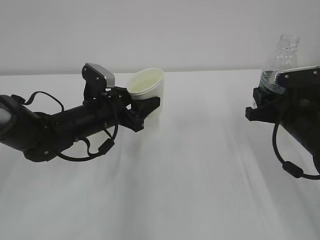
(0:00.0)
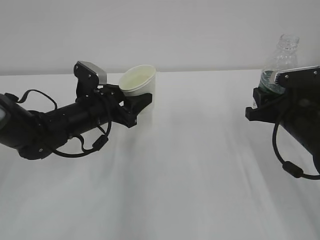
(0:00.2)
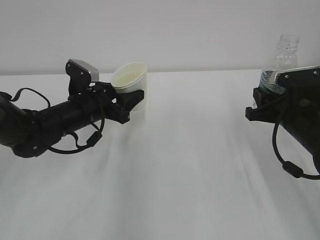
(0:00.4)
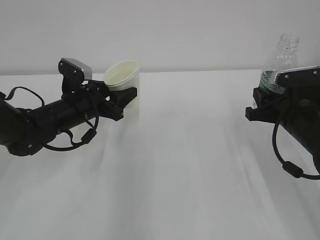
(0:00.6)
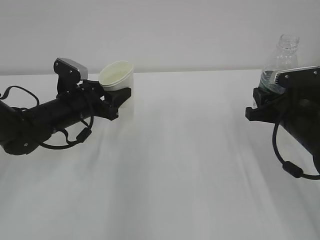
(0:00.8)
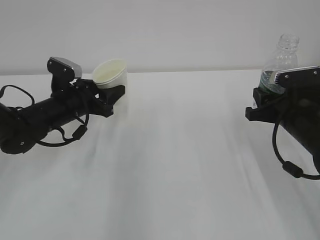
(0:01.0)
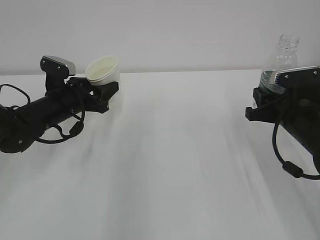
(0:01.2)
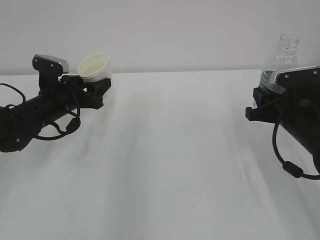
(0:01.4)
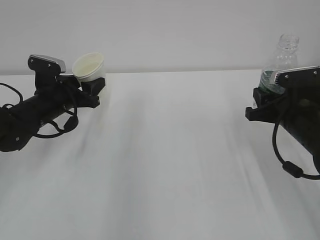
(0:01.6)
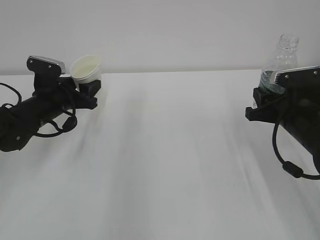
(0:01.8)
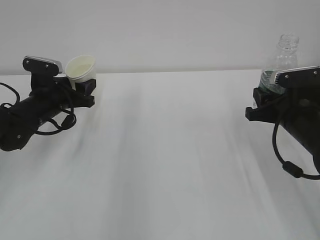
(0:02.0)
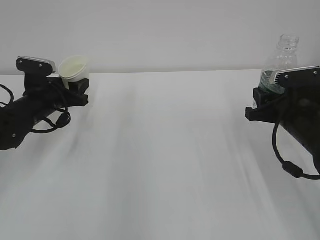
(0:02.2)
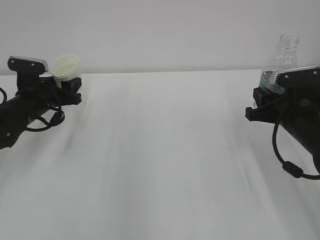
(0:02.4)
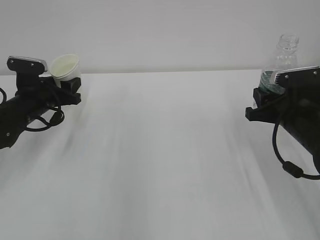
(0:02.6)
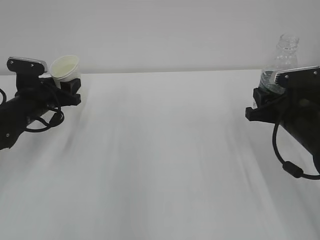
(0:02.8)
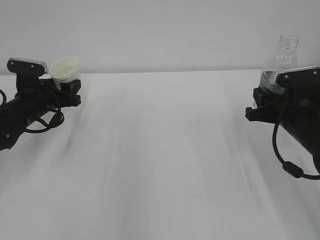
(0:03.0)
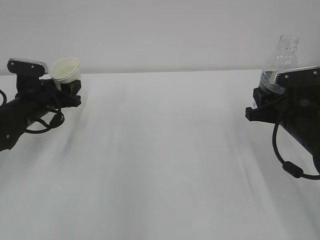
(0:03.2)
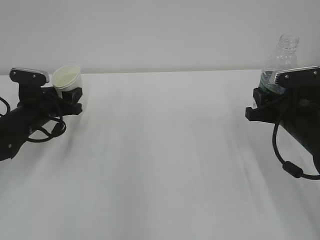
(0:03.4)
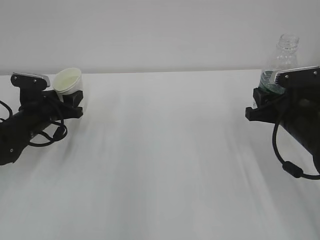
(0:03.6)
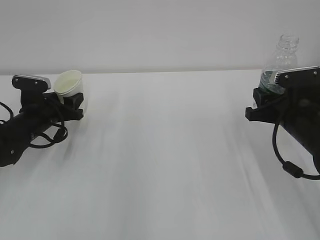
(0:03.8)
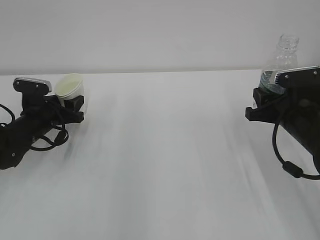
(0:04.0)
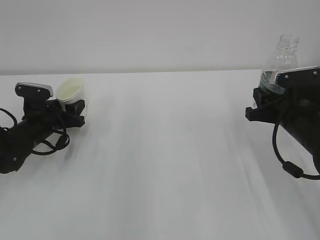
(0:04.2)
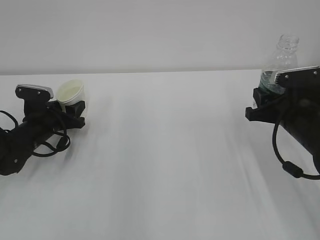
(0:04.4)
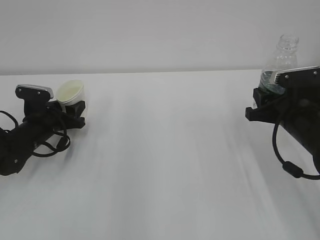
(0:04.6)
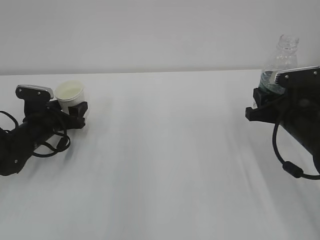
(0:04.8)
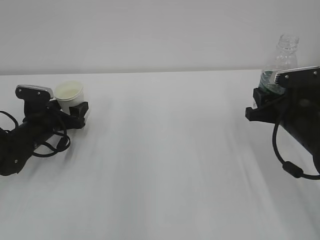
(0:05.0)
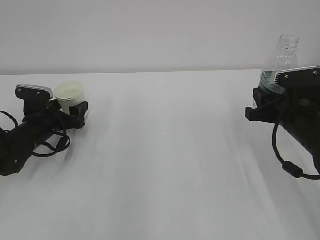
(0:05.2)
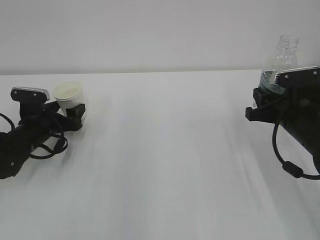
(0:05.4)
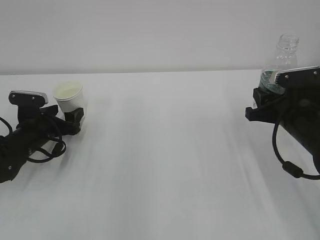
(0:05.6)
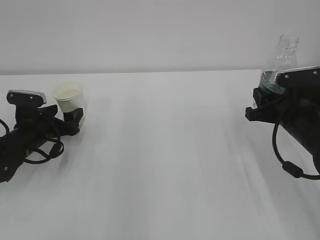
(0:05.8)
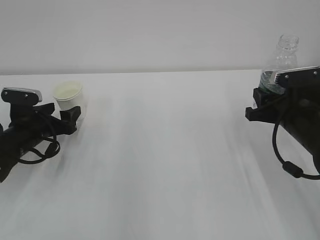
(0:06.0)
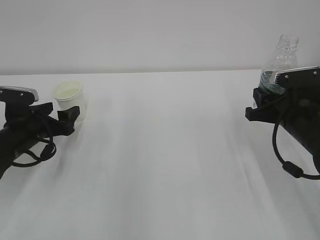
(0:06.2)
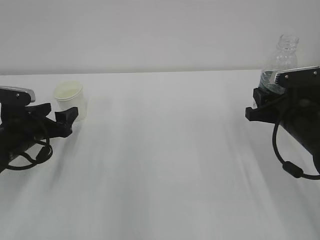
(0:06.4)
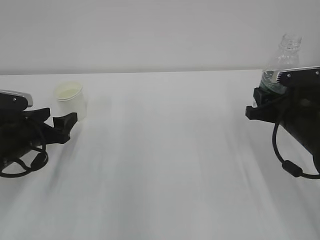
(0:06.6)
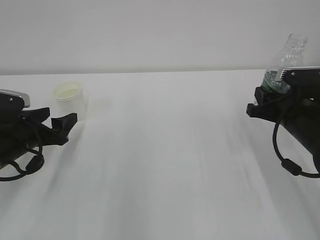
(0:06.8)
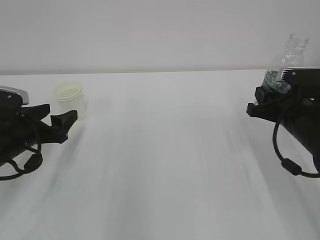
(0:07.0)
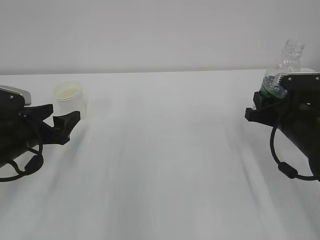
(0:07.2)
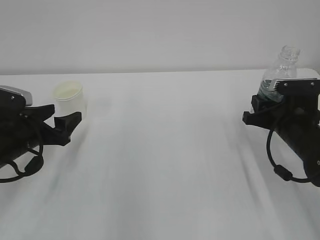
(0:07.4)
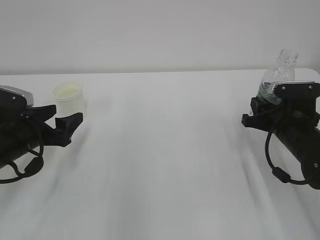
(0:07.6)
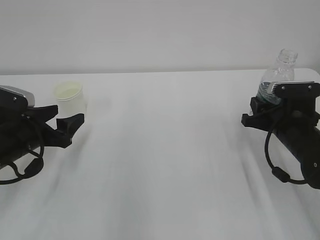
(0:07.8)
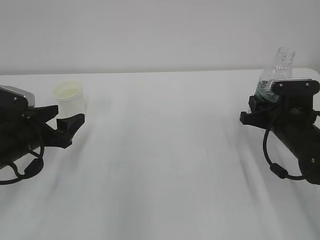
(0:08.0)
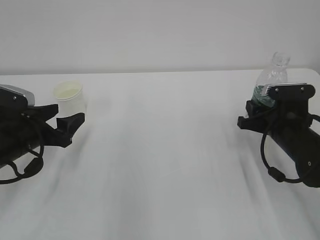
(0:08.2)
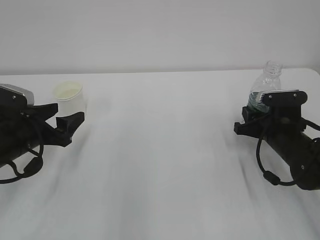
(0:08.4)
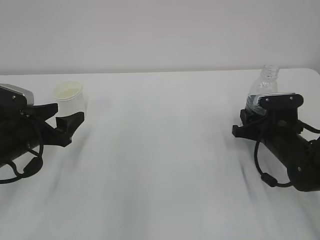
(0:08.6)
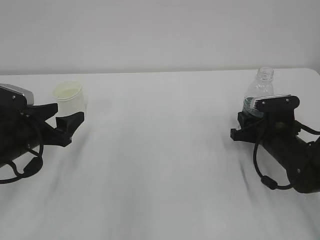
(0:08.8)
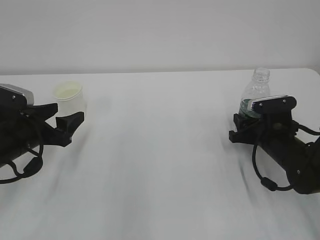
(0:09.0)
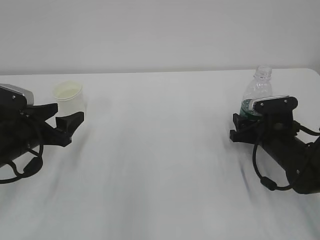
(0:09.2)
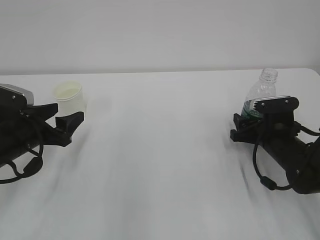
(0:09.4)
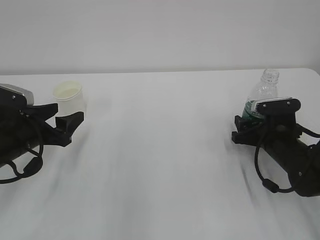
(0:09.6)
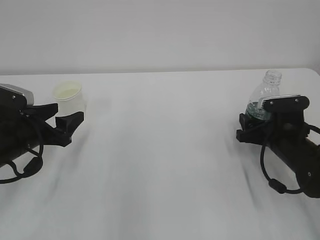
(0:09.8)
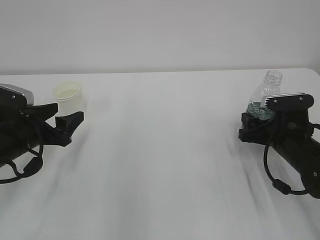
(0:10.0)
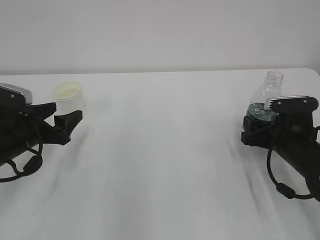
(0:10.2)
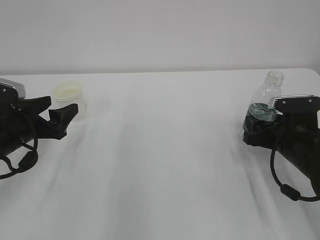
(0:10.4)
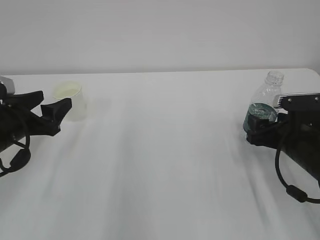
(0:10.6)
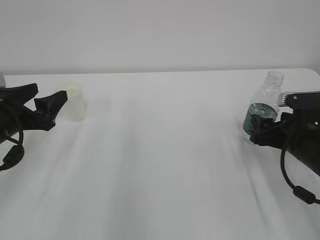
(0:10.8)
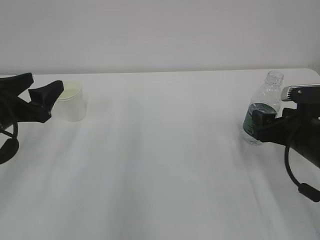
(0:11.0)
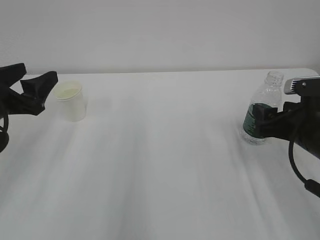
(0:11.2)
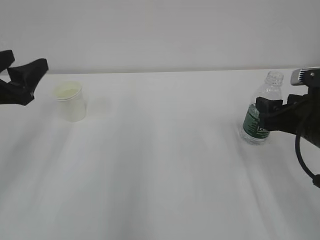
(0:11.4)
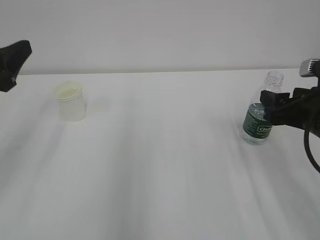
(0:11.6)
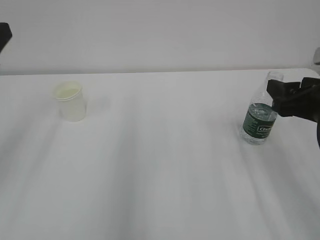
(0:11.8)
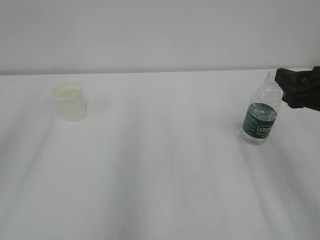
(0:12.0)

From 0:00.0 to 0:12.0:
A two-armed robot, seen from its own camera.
From 0:00.0 to 0:01.6: The left gripper moves to the left, some 10 cm.
From 0:01.6 to 0:03.0: The grippers stay close to where they were, moving slightly.
From 0:03.0 to 0:04.4: The left gripper moves downward, about 5 cm.
From 0:04.4 to 0:06.0: The left gripper opens.
From 0:06.0 to 0:07.6: The left gripper goes some 5 cm backward.
From 0:07.6 to 0:09.0: The grippers stay close to where they were, moving slightly.
From 0:09.0 to 0:10.4: The right gripper changes place by approximately 5 cm, and opens.
From 0:10.4 to 0:12.0: Both grippers travel together upward and backward, some 20 cm.

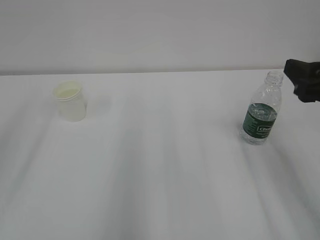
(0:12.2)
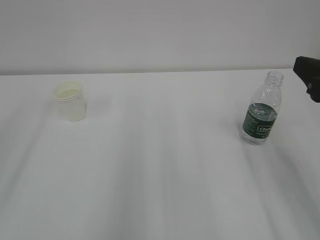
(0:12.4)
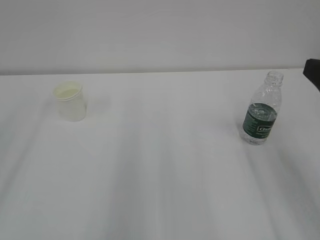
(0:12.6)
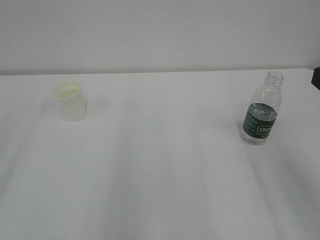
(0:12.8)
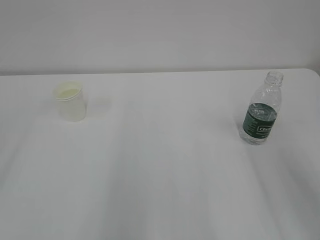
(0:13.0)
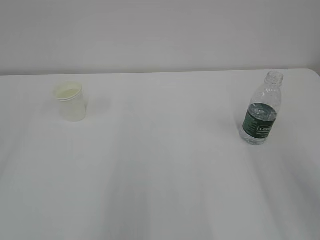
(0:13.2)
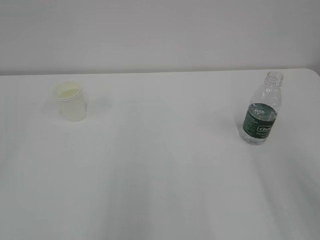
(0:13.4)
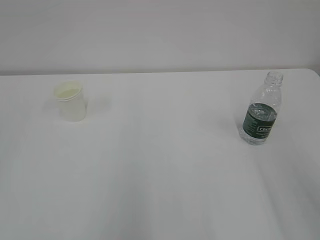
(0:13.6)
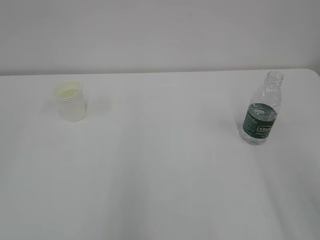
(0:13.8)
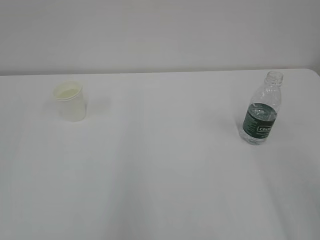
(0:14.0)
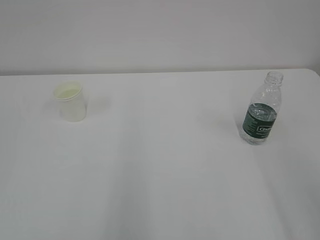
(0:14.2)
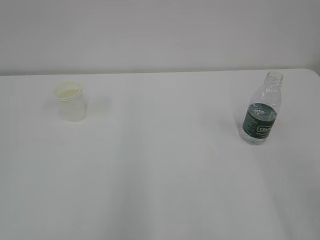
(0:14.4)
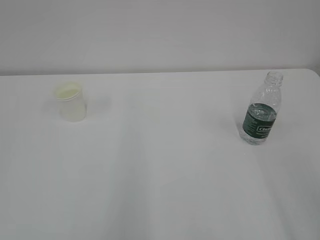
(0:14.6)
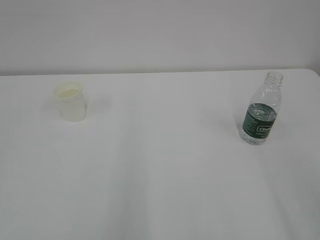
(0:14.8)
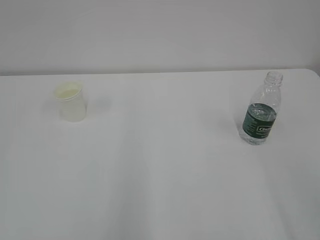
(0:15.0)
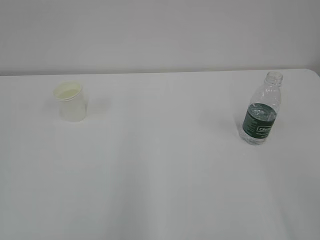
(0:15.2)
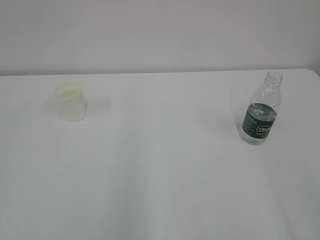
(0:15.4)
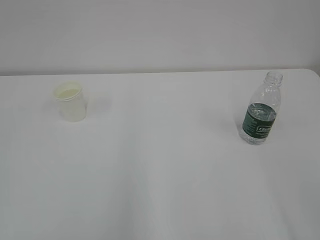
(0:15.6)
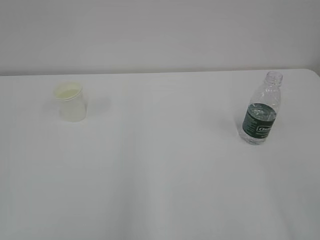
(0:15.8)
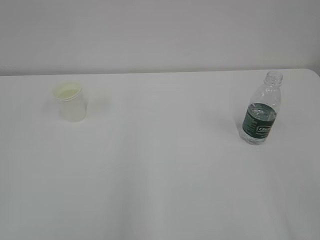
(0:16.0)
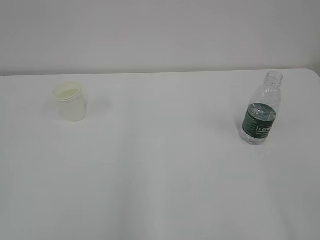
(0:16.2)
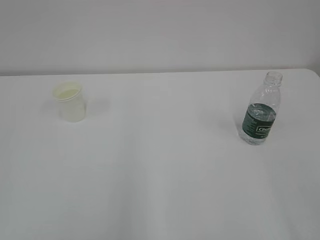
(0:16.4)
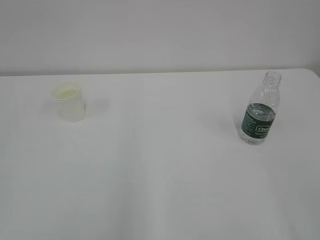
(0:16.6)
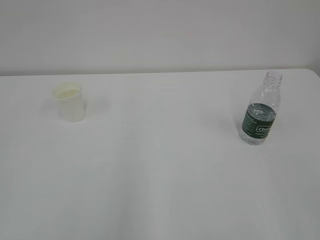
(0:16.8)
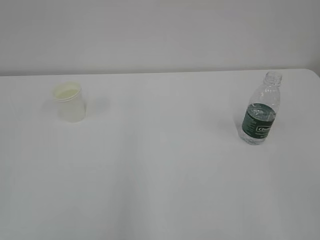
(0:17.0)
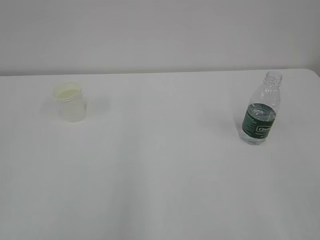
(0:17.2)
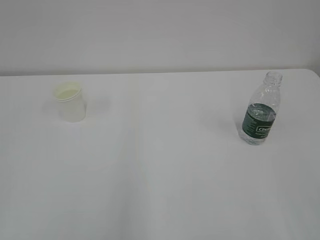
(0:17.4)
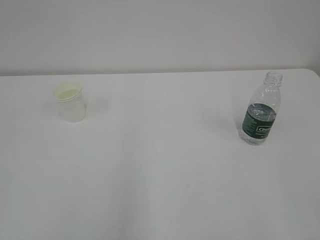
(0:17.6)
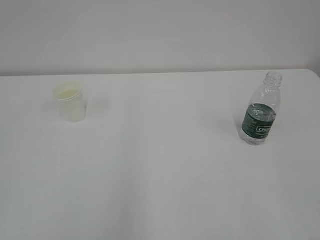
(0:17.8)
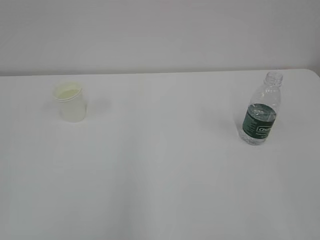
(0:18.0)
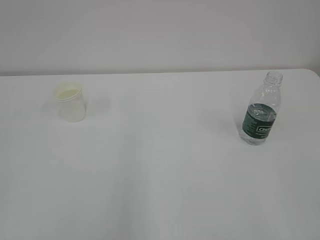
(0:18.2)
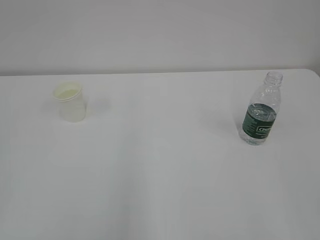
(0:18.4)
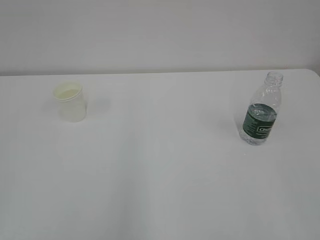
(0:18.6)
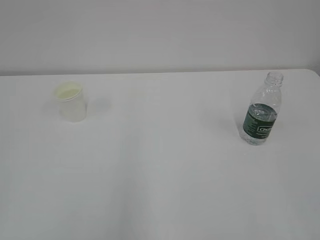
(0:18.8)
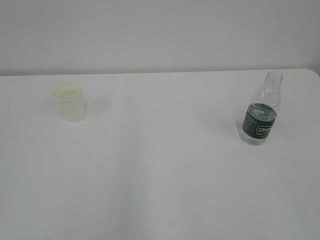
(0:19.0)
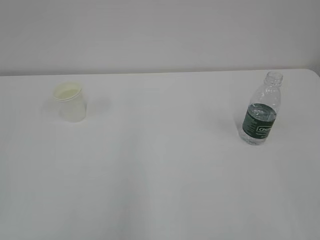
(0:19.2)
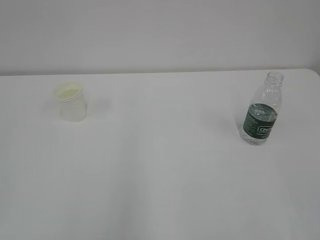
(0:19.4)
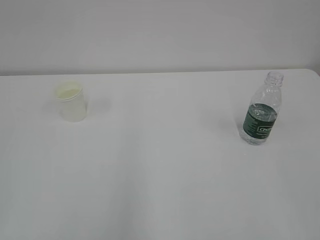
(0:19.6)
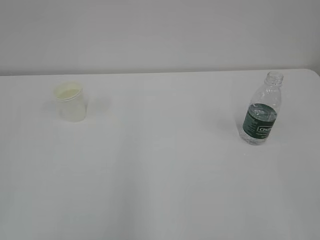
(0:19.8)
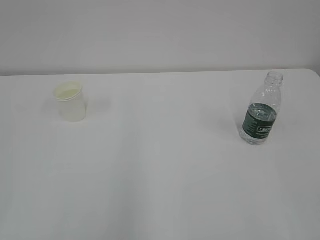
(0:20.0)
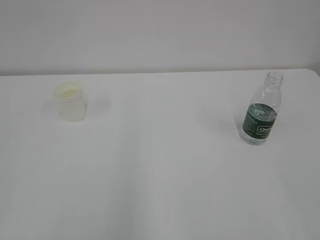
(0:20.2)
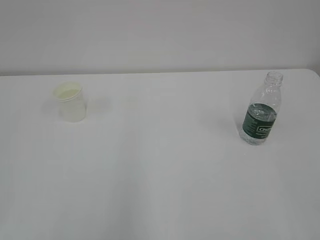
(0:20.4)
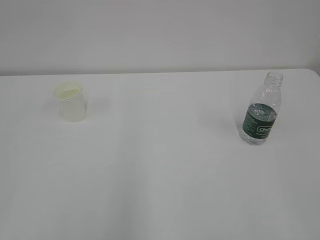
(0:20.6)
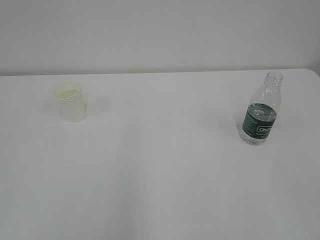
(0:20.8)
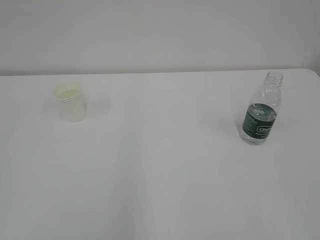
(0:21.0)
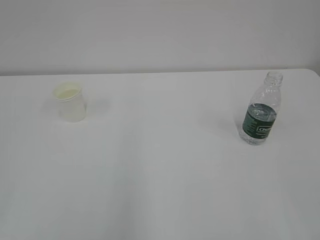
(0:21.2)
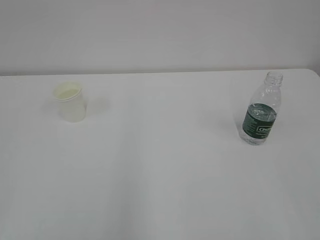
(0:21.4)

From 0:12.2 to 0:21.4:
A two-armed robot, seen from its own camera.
From 0:12.2 to 0:13.8: The right gripper is displaced backward by about 15 cm.
From 0:19.8 to 0:21.4: Neither gripper changes place.

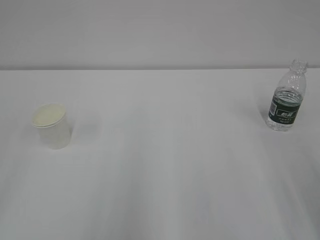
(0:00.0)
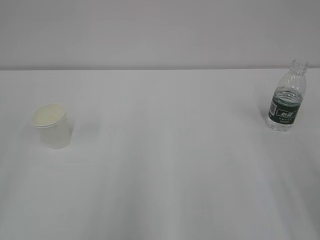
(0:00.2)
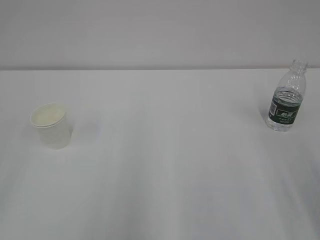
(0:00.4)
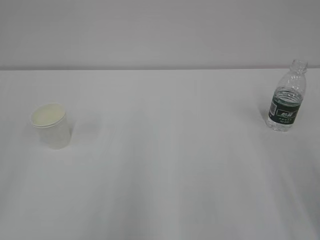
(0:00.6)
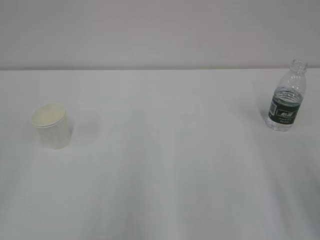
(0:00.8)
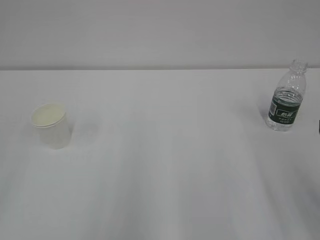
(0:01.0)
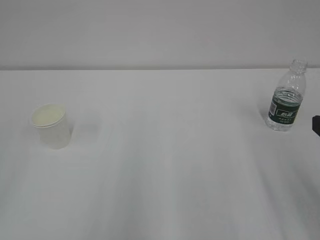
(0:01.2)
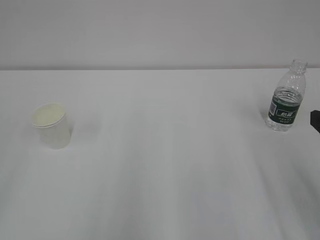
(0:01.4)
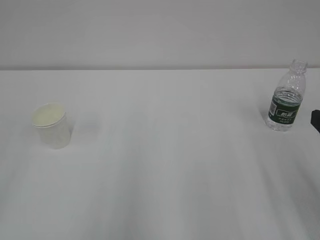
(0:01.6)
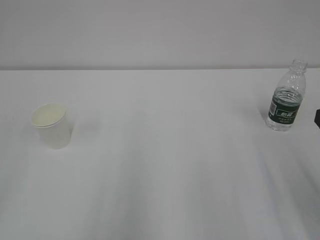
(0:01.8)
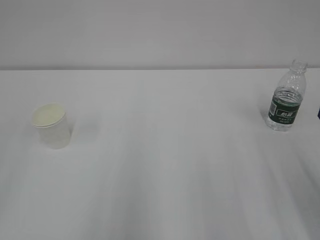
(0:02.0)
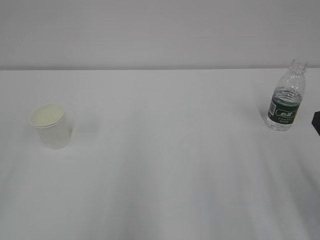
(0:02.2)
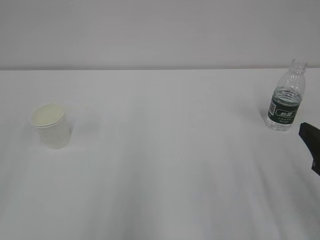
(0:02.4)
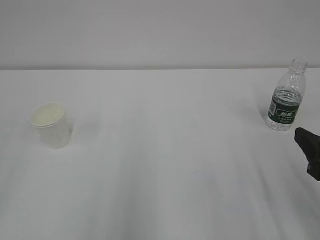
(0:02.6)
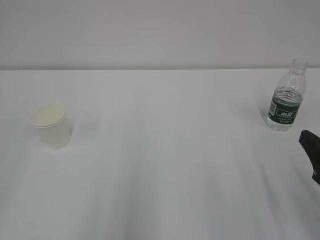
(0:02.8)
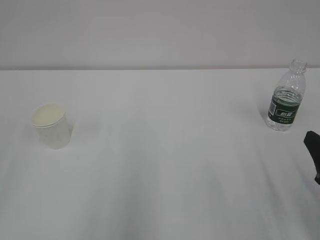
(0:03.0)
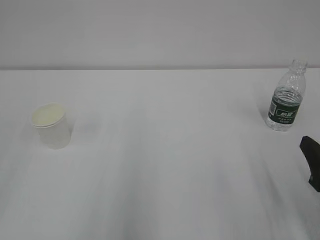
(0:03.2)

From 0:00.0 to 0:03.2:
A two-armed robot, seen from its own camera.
From 0:01.6 to 0:03.2: The right gripper travels downward by approximately 10 cm.
